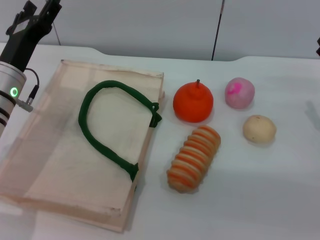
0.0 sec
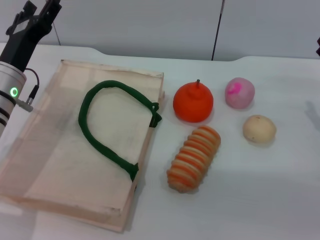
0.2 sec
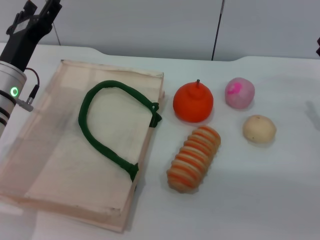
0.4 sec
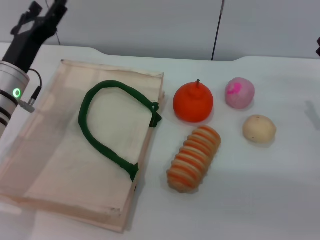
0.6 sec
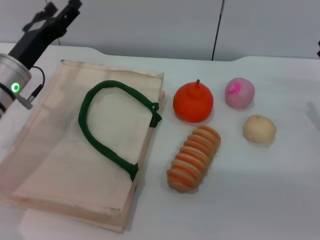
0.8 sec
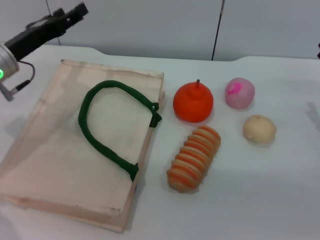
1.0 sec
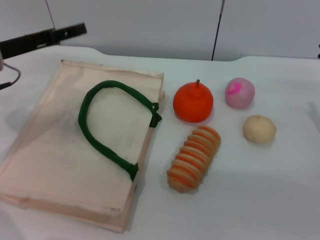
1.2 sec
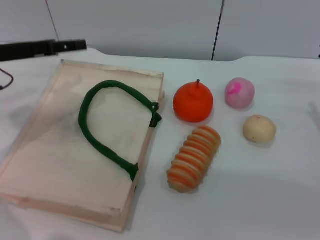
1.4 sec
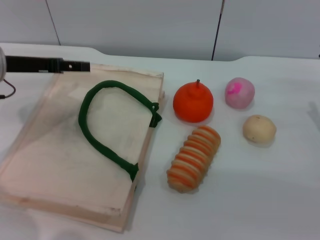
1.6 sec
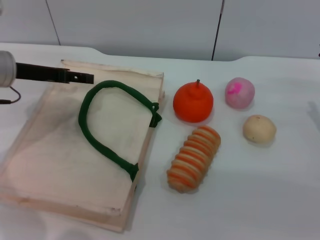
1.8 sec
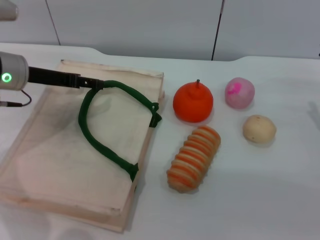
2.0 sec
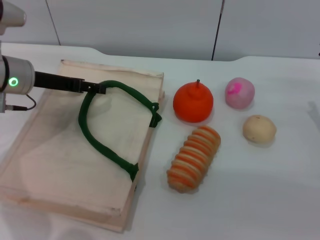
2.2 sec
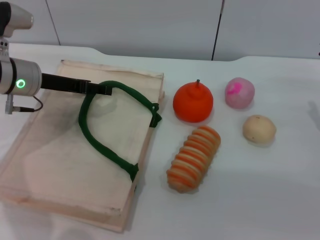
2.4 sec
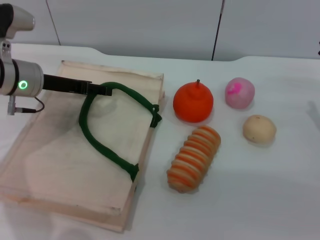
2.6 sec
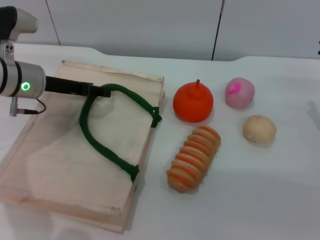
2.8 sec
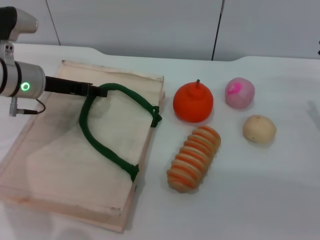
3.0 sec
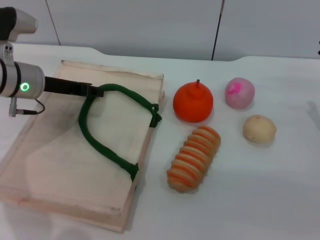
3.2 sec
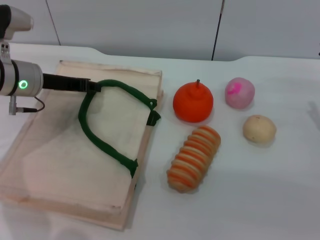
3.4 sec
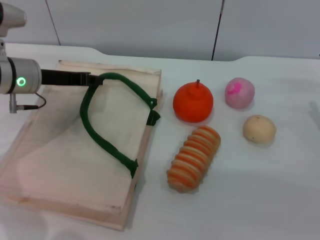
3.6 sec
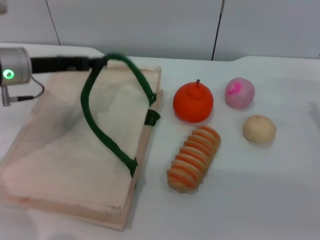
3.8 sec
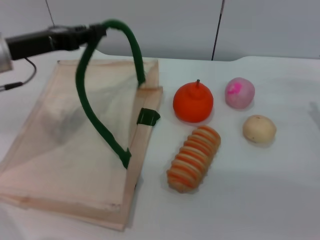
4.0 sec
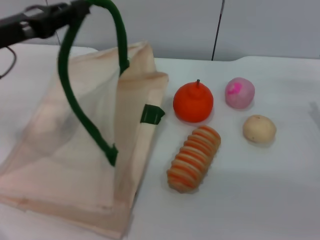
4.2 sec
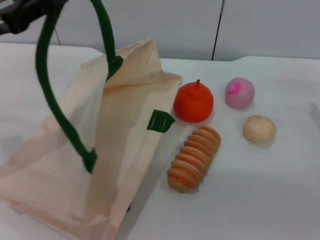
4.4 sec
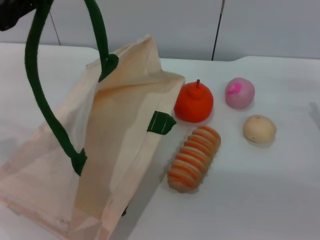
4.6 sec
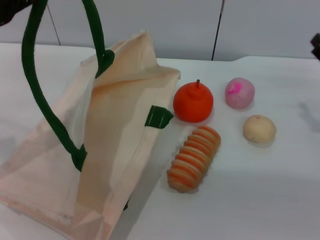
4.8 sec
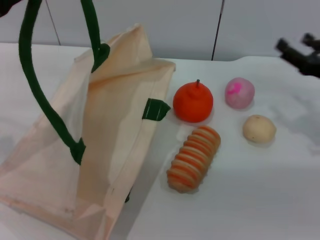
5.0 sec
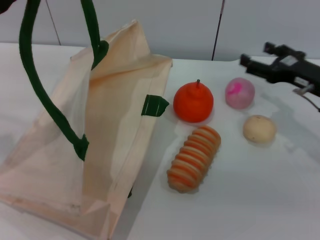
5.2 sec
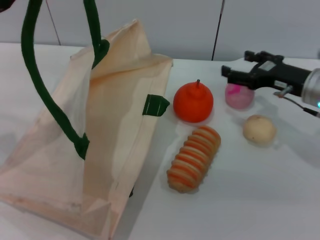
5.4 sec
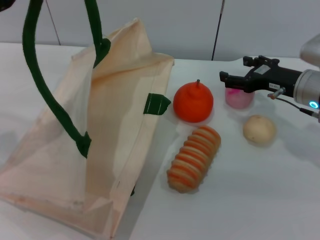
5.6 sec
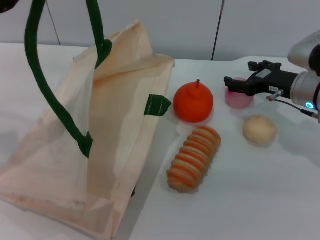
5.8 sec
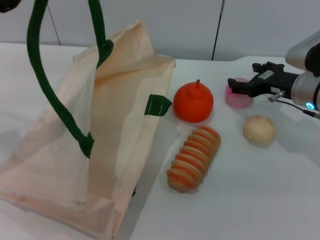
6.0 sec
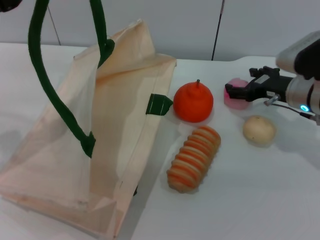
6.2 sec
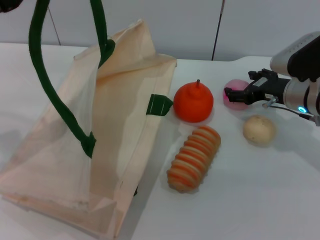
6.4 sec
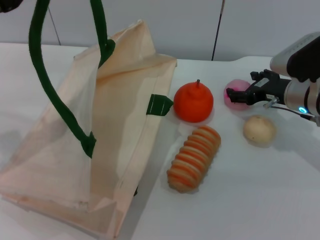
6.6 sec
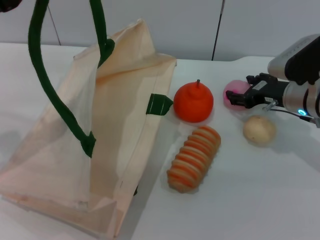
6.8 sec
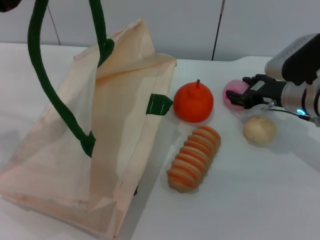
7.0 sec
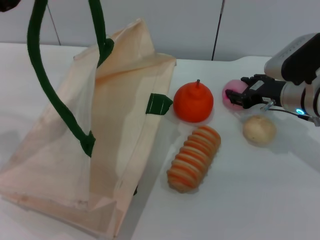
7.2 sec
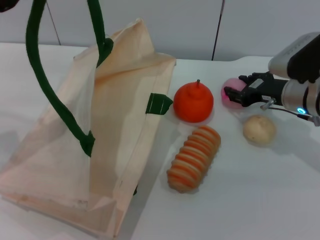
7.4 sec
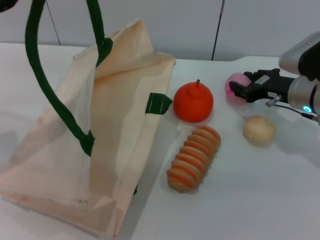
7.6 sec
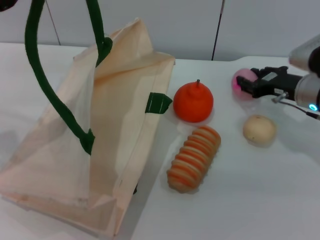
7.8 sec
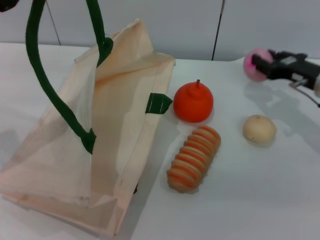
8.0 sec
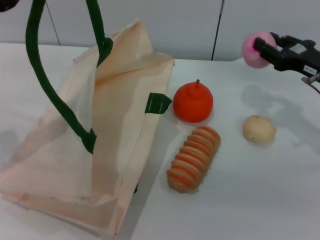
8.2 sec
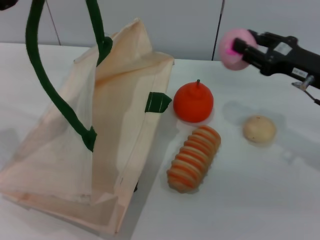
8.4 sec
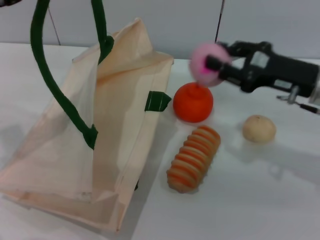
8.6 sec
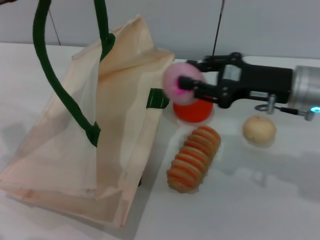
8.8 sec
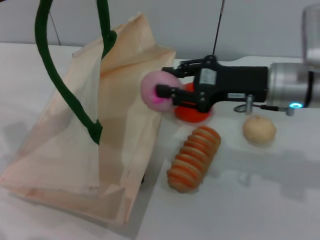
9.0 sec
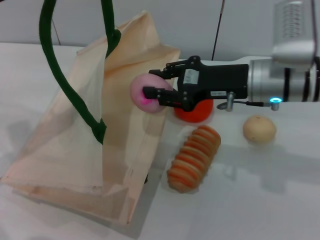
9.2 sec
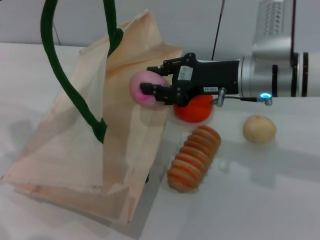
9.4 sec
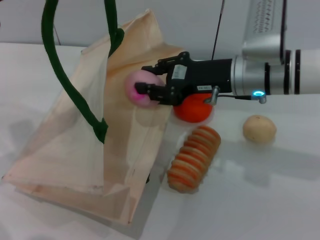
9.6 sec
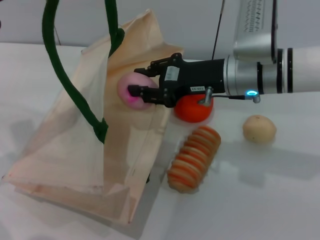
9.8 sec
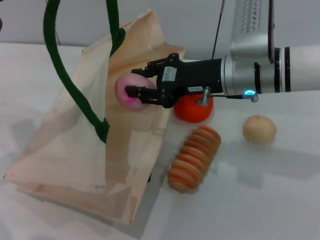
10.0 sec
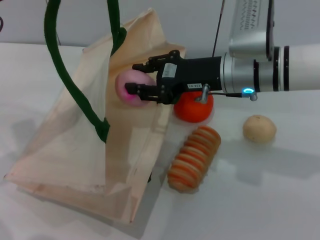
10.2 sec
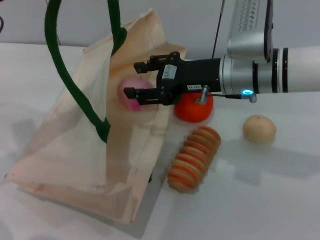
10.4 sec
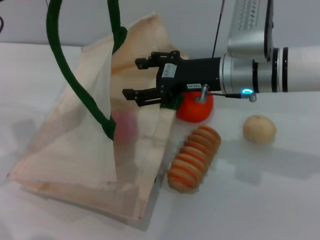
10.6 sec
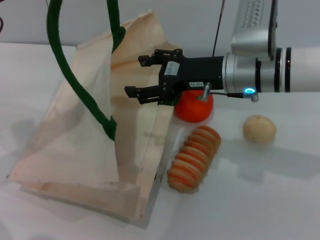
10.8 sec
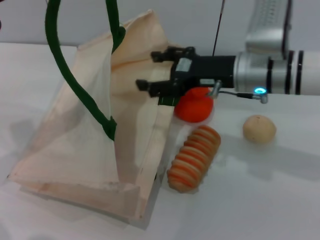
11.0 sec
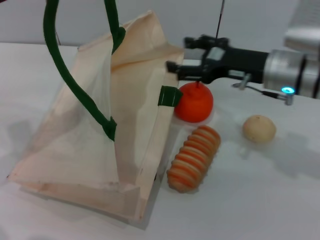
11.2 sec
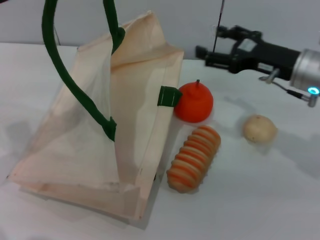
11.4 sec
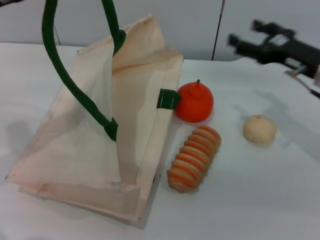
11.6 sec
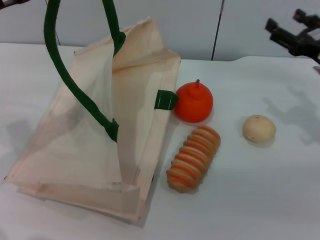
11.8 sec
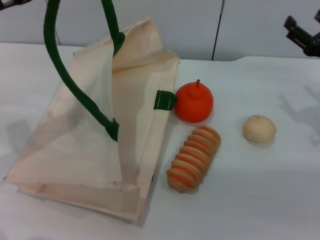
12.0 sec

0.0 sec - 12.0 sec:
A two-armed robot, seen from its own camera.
Task of the whole recording: pick up the peach from the table and place it in the white handbag.
Step, 0.0 sec - 4.6 sec: Lift the woven bag with the left gripper to open it.
Step, 4.8 sec - 8.0 sec: Pick up the peach with the right gripper.
Step, 8.2 sec - 11.0 sec: Place the peach into the woven bag with the right gripper.
0.0 sec - 1.6 sec: The left gripper travels upward by approximately 5 cm.
1.6 sec - 3.0 sec: The left gripper changes place by about 5 cm.
3.0 sec - 4.4 sec: The left gripper shifts approximately 15 cm upward, backward and to the left, and closes its fingers.
4.4 sec - 6.0 sec: The right gripper travels to the left and forward by some 10 cm.
6.0 sec - 7.6 sec: The right gripper closes.
7.6 sec - 9.0 sec: The right gripper moves upward and to the left, about 10 cm.
9.0 sec - 10.4 sec: The right gripper shifts about 5 cm to the left.
10.4 sec - 12.0 sec: The right gripper travels to the right by roughly 20 cm, and opens its fingers.

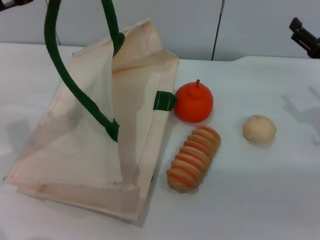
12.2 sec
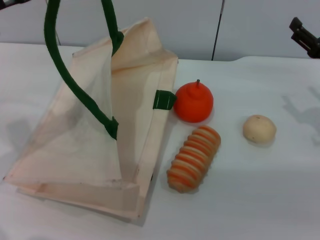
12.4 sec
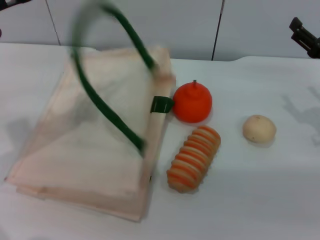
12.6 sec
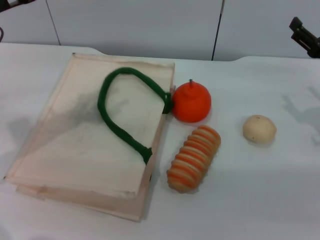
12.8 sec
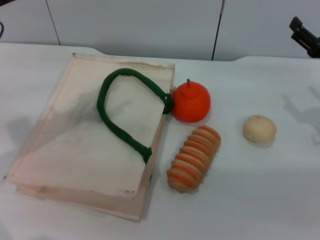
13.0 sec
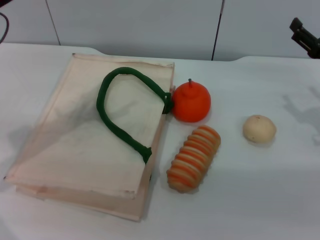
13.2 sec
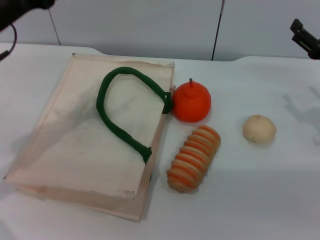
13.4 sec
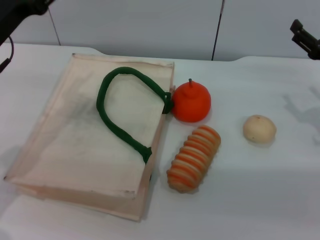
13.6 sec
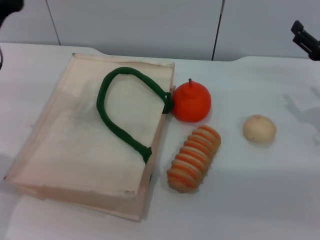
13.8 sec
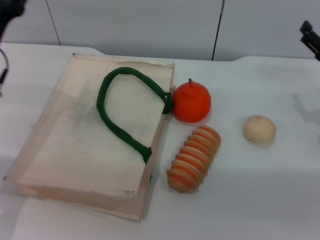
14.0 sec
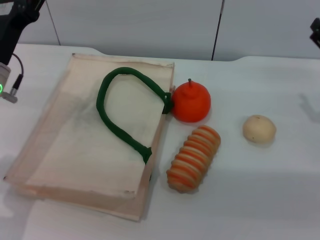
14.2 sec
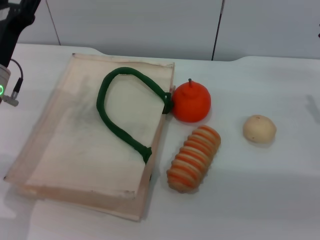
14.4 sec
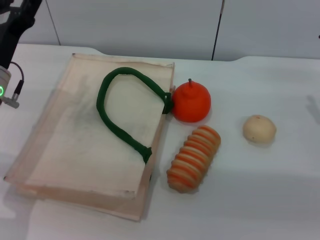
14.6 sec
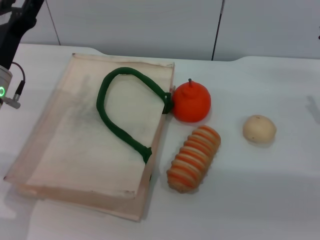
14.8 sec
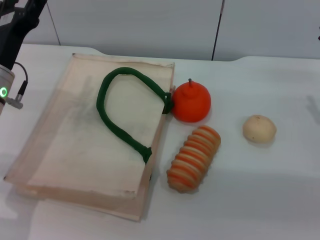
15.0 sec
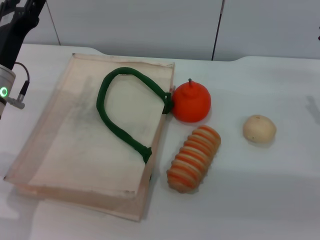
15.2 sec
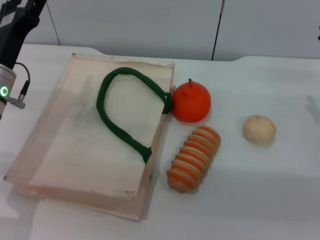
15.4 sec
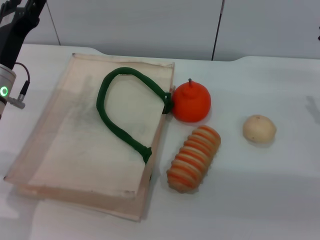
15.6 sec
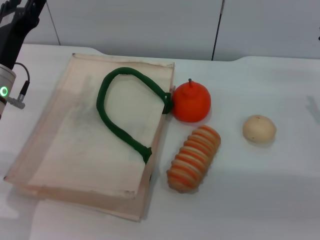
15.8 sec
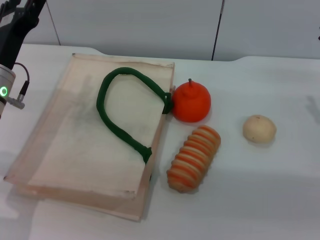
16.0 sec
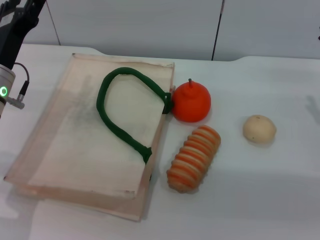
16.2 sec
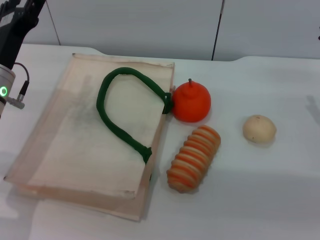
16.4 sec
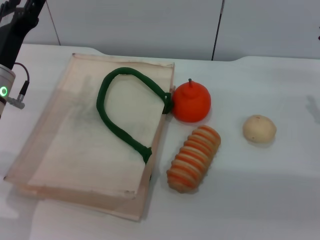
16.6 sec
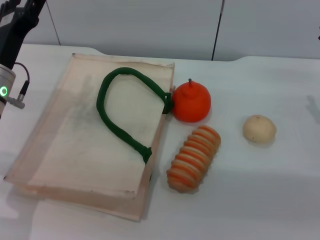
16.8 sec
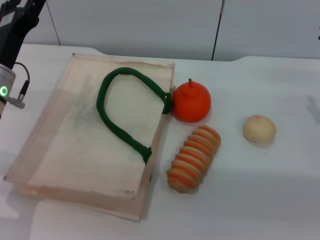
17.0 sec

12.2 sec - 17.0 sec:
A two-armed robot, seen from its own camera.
Task of the whole recording: pick up the peach from the table and place it in the white handbag.
Step, 12.2 sec - 13.6 sec: Lower the woven bag with the left gripper to close it.
12.2 sec - 13.8 sec: The left gripper travels downward by some 10 cm, and opens its fingers.
13.8 sec - 15.4 sec: The grippers move only a little.
15.4 sec - 17.0 sec: The two grippers keep their place.
